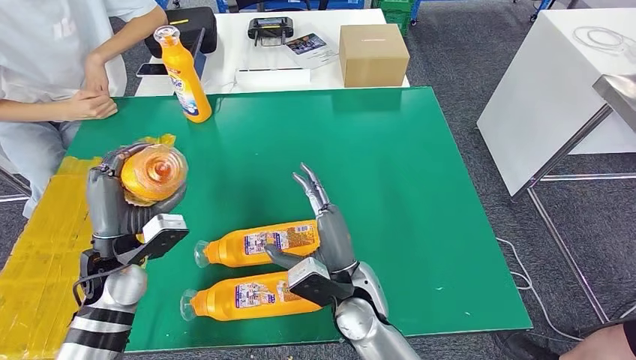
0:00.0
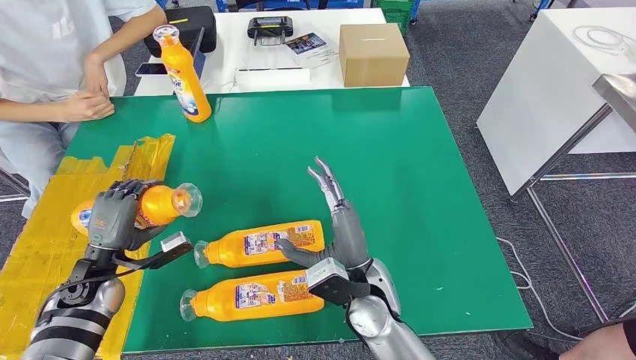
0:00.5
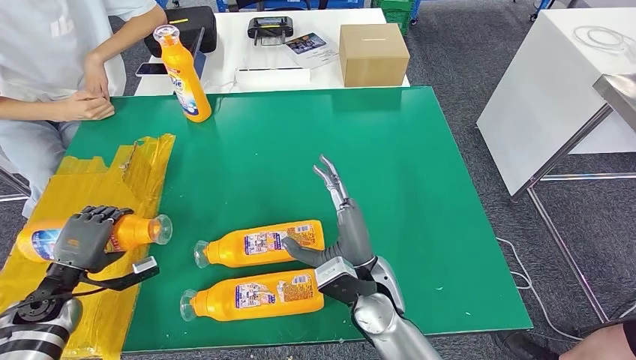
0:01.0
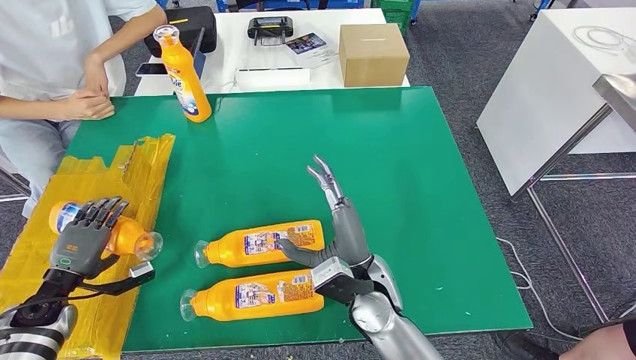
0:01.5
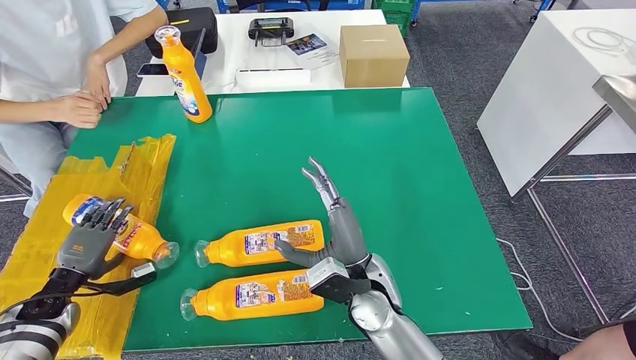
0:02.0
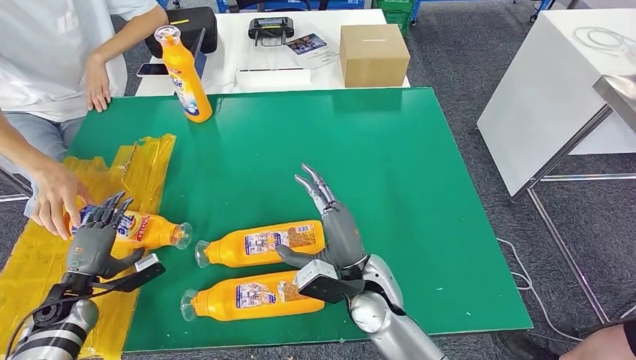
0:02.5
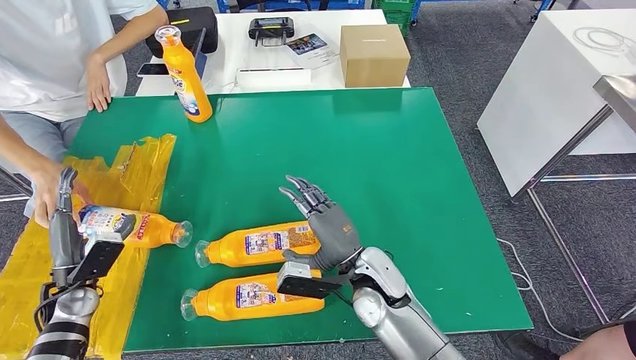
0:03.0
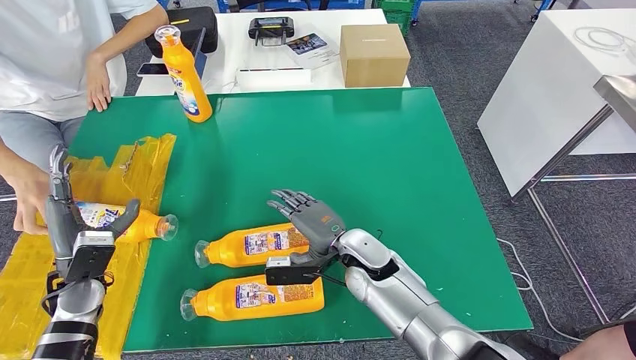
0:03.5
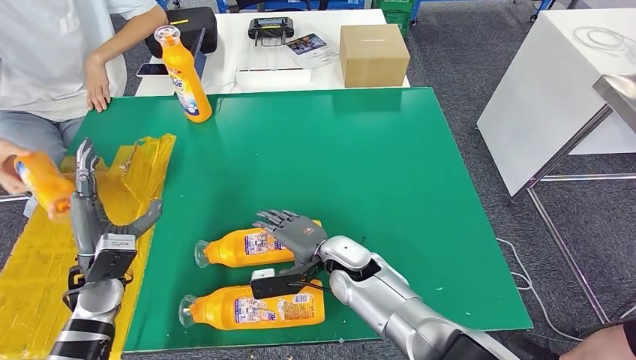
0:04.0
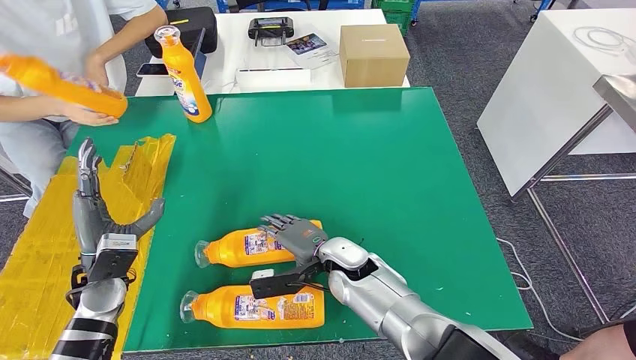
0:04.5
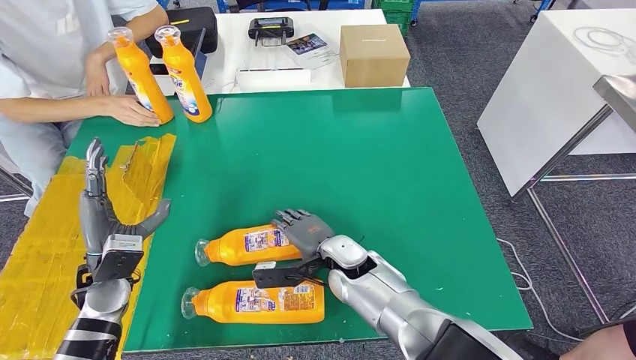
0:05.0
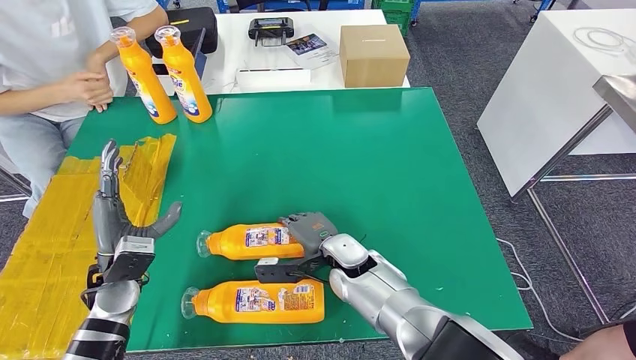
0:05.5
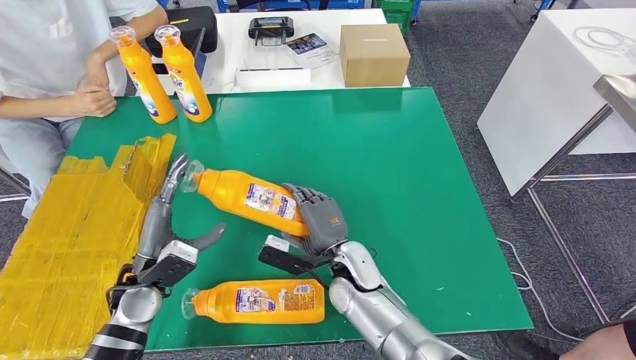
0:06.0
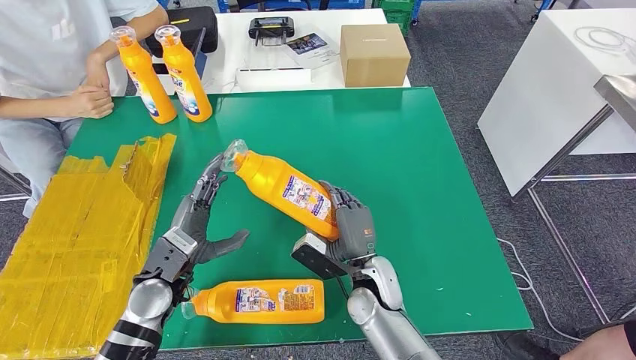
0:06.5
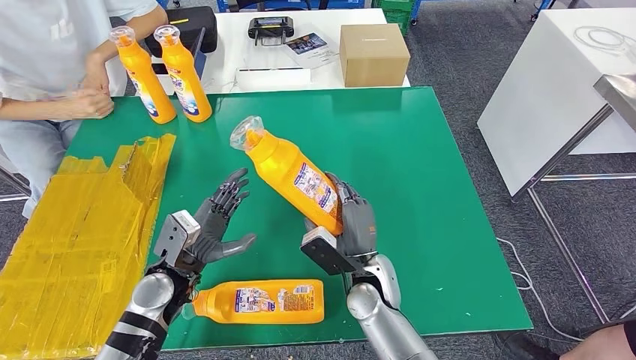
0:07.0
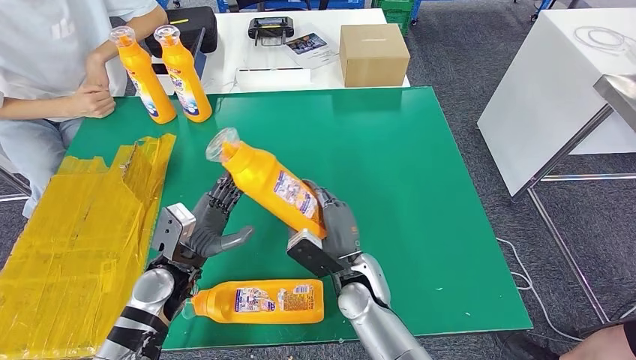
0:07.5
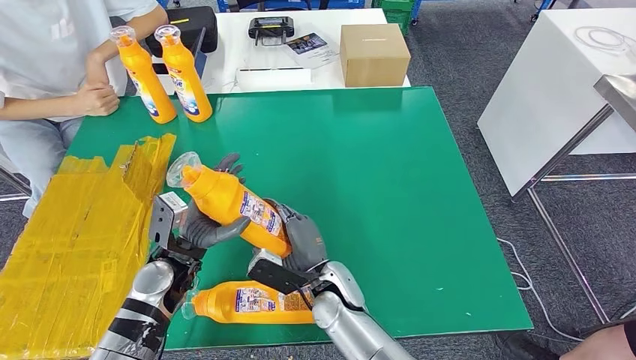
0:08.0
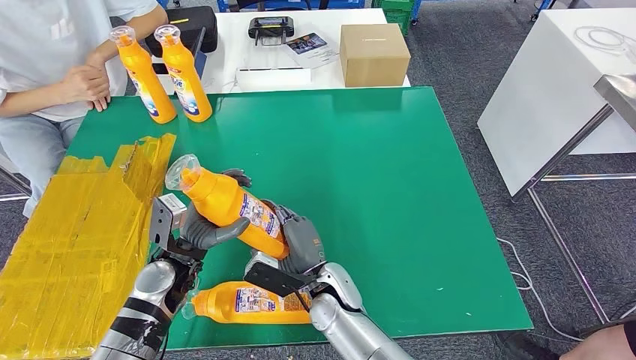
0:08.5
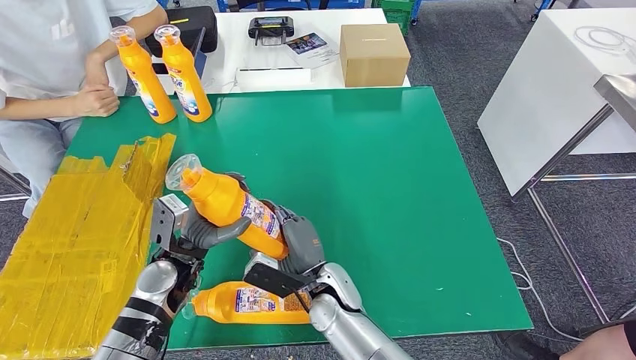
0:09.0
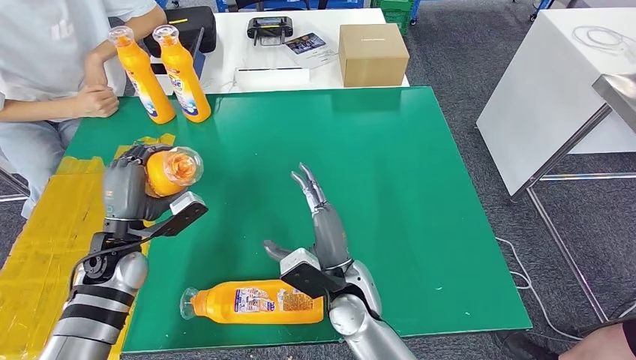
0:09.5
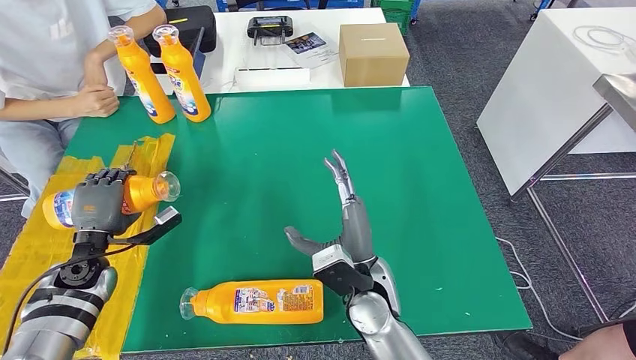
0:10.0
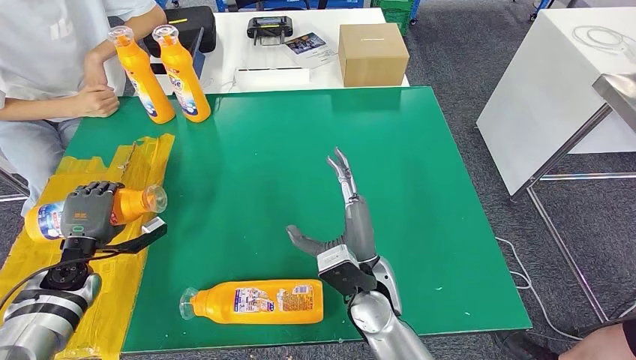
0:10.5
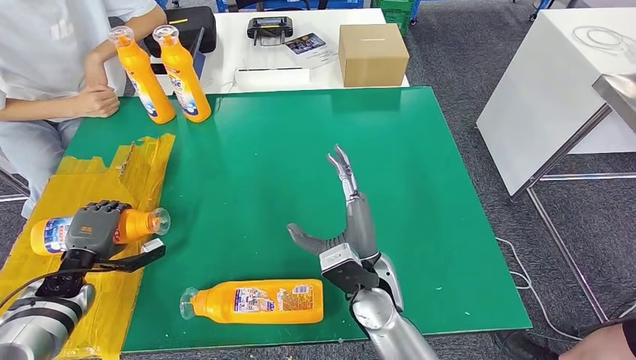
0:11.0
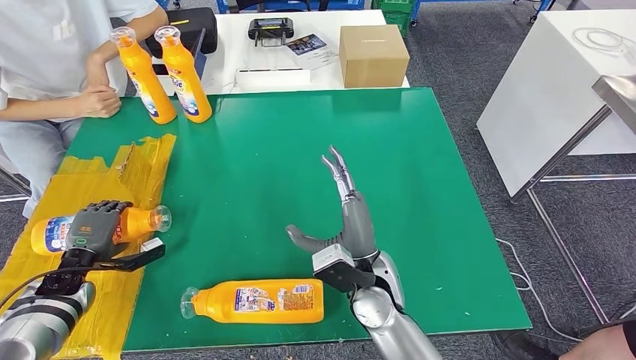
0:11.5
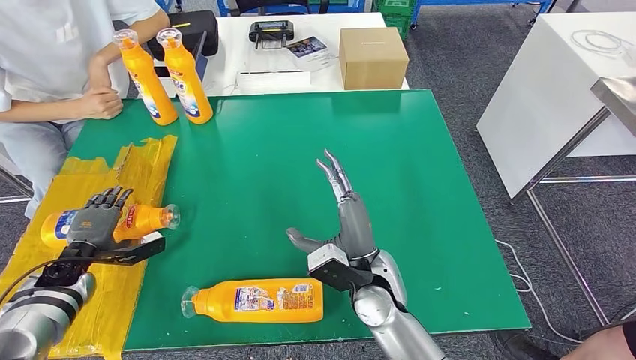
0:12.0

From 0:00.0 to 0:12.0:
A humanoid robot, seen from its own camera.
Step, from 0:00.0 to 0:03.0: Flip the fast-moving consumer goods bottle to the front side.
Step, from 0:03.5 to 0:07.5: Pick up the fast-moving consumer goods bottle from the table.
From 0:00.0 to 0:02.0: The left hand is displaced to the left and downward by roughly 20 cm.
From 0:02.0 to 0:04.0: The left hand shifts some 15 cm to the right and upward, while the right hand heads forward, covering roughly 5 cm.
From 0:06.0 to 0:08.0: The left hand heads to the right, covering roughly 5 cm.
From 0:08.0 to 0:10.0: The right hand goes some 10 cm upward and to the right; the left hand heads to the left, covering some 15 cm.

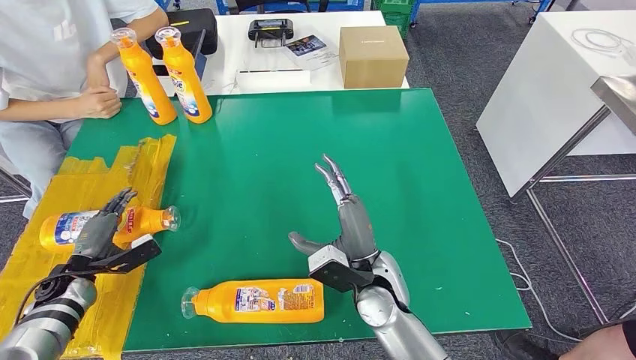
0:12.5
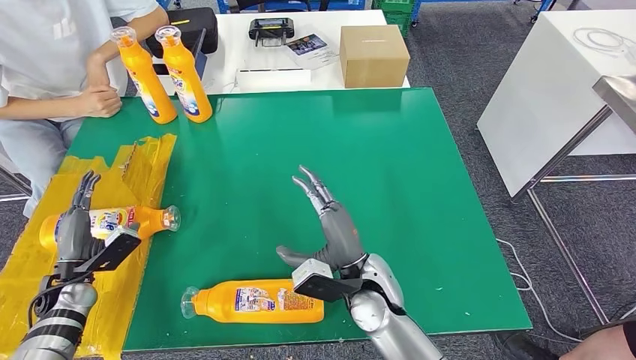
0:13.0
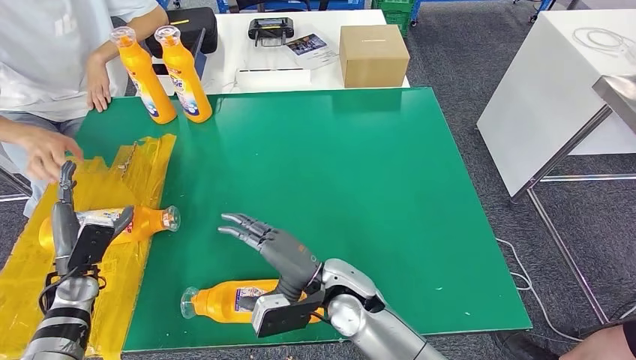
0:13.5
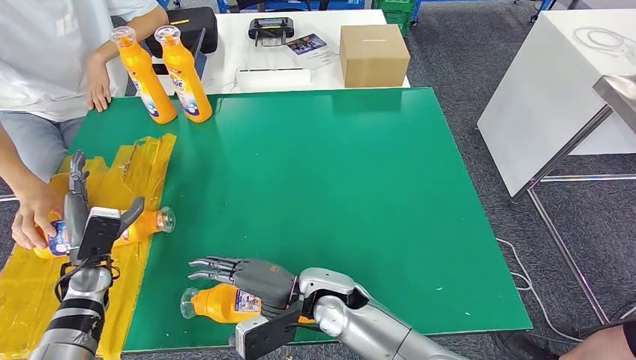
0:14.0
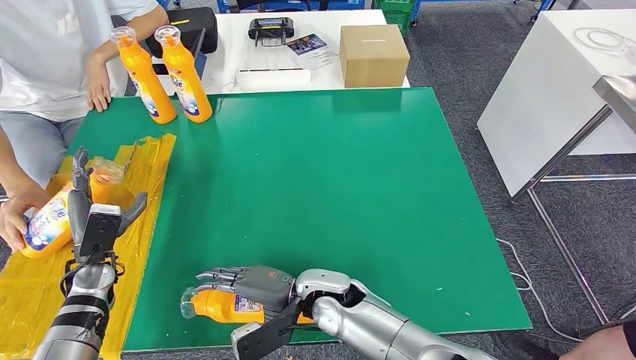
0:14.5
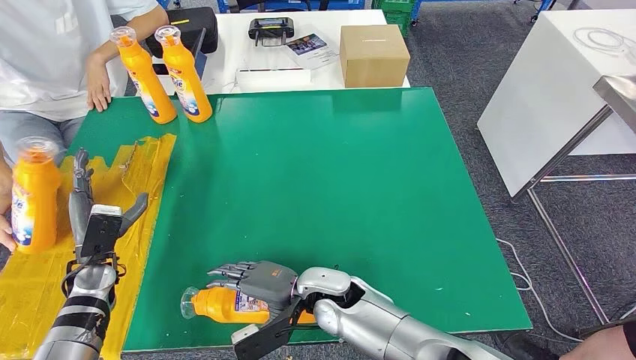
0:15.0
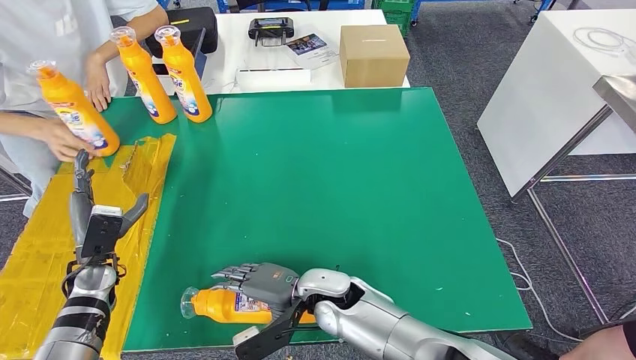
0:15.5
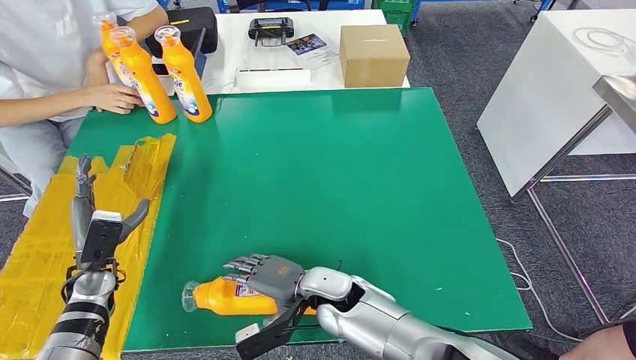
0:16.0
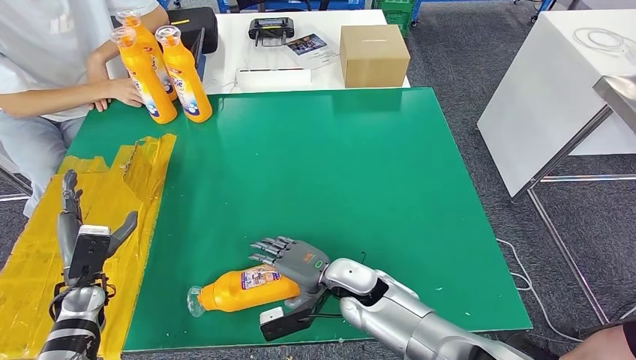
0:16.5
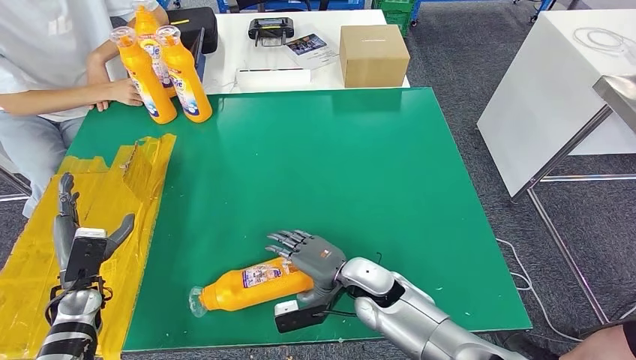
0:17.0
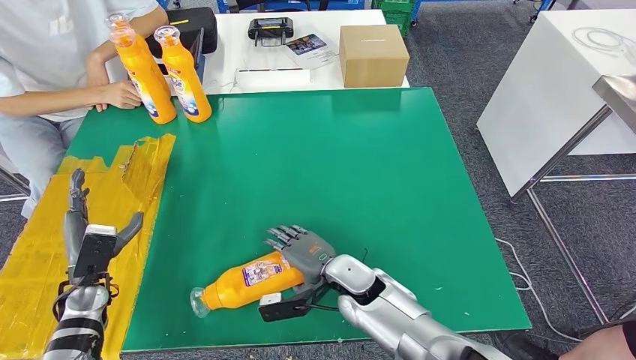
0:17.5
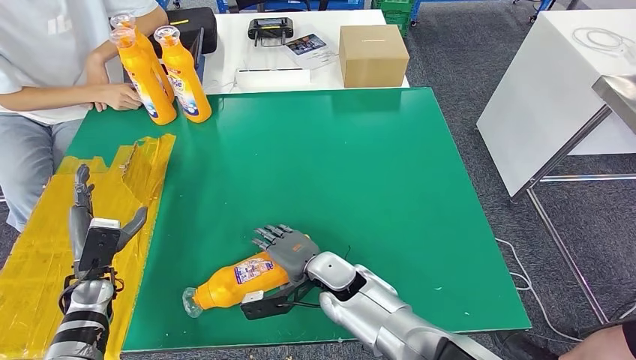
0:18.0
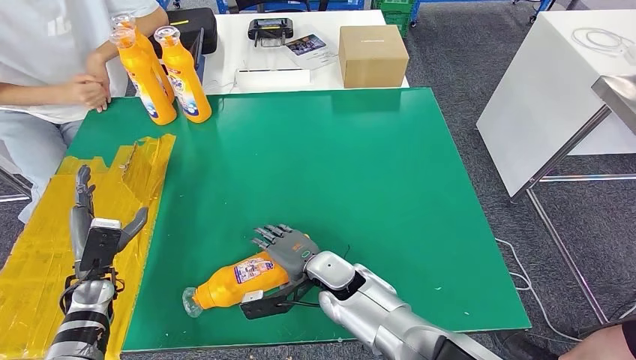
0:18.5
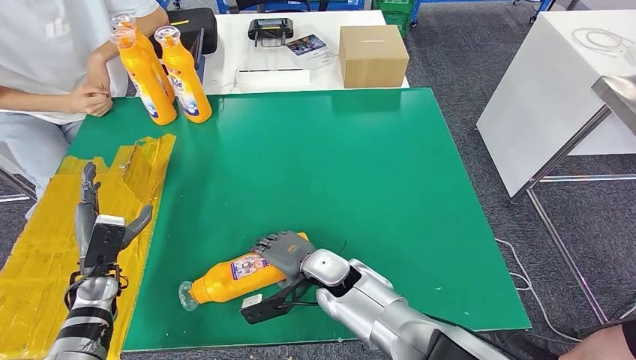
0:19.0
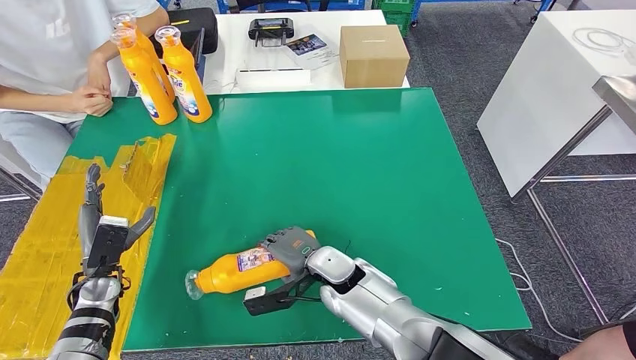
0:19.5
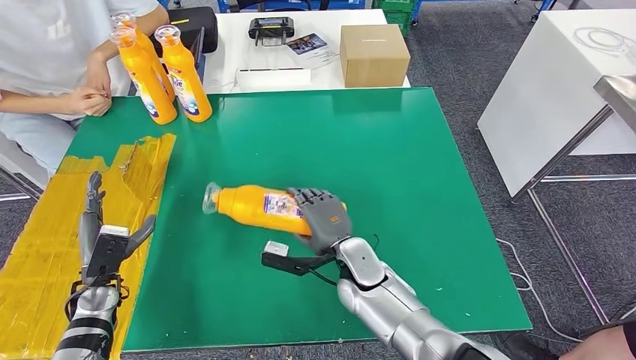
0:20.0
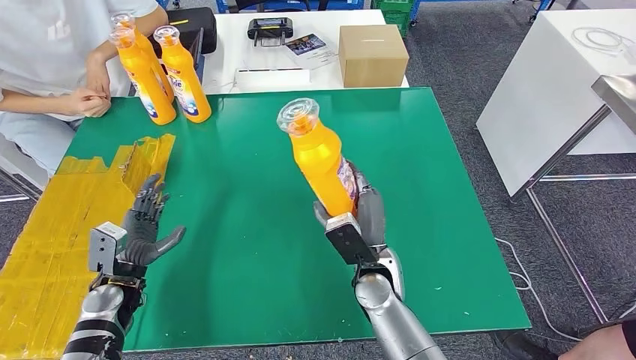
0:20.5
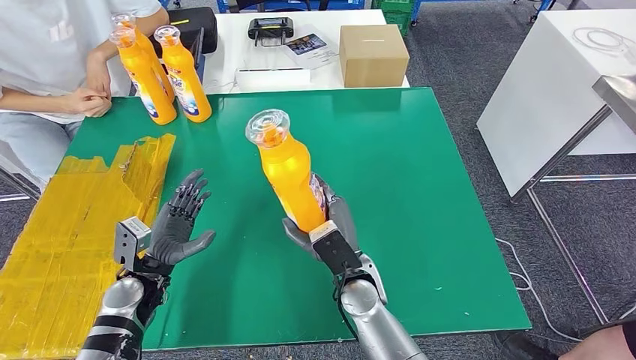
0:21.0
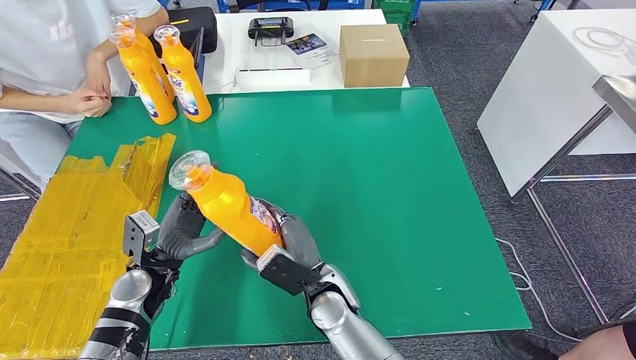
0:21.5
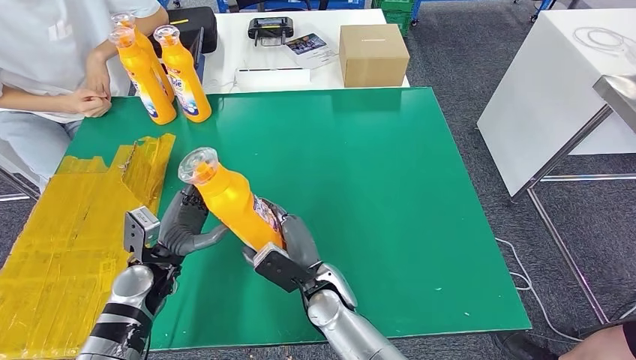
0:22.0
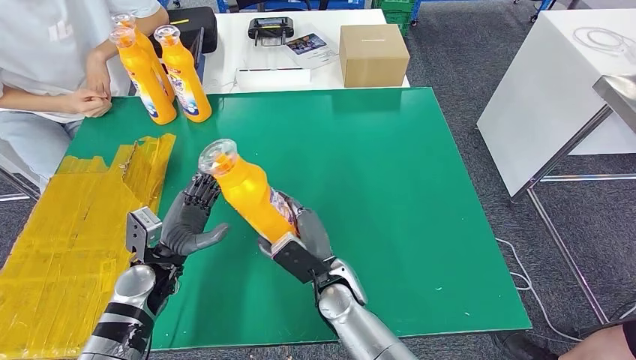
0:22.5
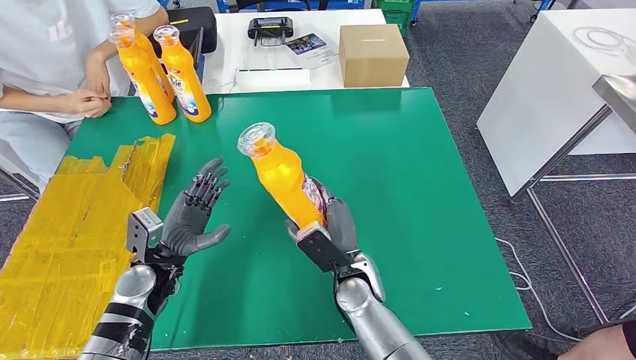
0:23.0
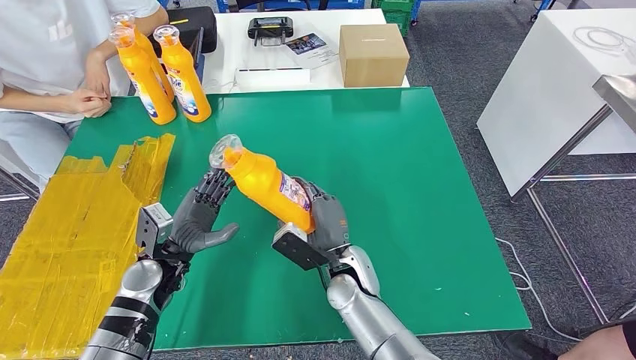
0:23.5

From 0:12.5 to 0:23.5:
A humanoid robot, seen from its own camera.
Step, from 0:12.5 to 0:15.5: Flip the fast-moving consumer goods bottle to the front side.
Step, from 0:16.0 to 0:23.0: Pick up the fast-moving consumer goods bottle from the table.
From 0:20.0 to 0:21.5: The right hand moves to the left, about 5 cm; the left hand heads to the right, covering approximately 10 cm.
From 0:21.5 to 0:23.5: The right hand moves about 5 cm.
